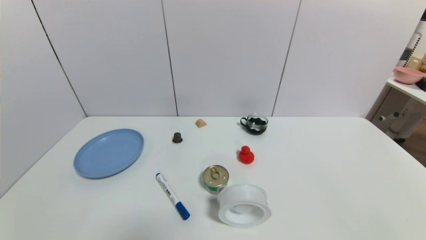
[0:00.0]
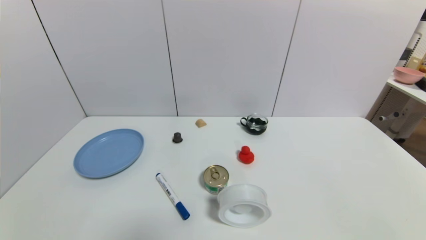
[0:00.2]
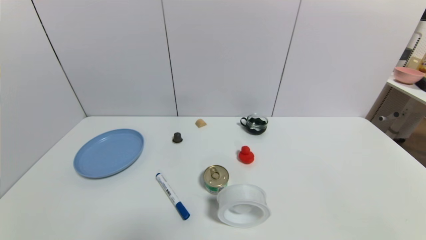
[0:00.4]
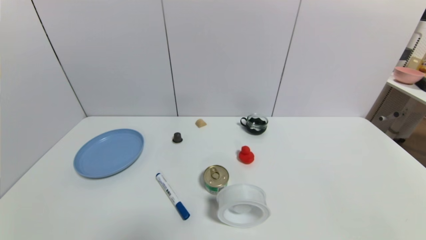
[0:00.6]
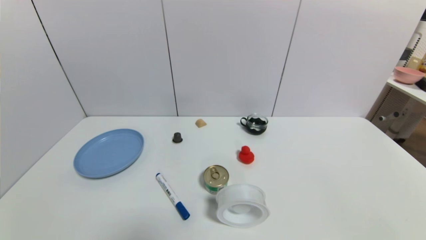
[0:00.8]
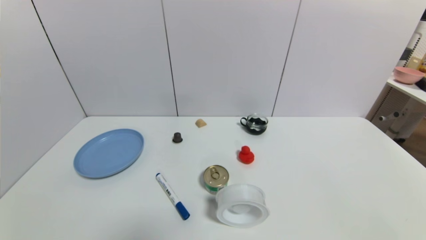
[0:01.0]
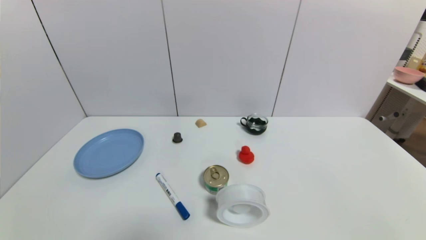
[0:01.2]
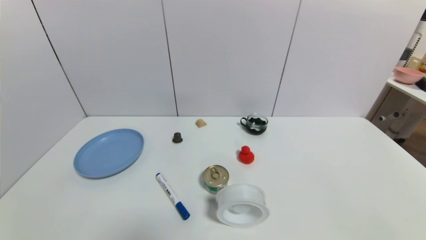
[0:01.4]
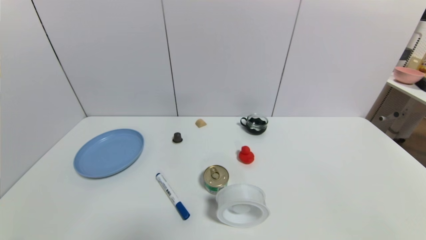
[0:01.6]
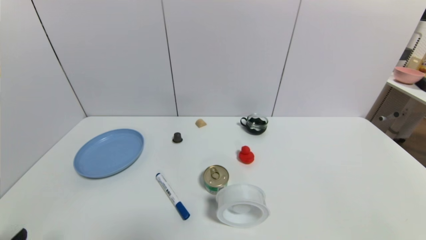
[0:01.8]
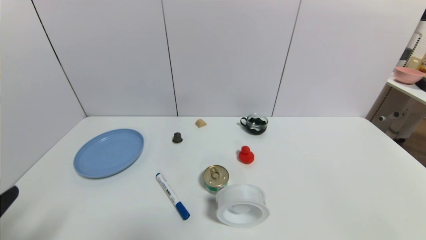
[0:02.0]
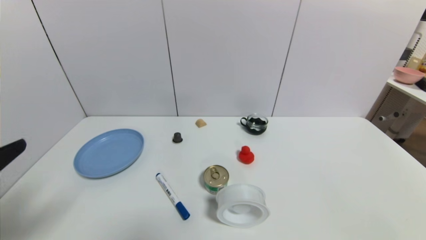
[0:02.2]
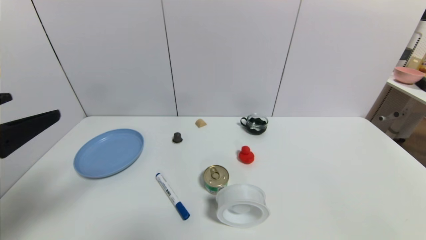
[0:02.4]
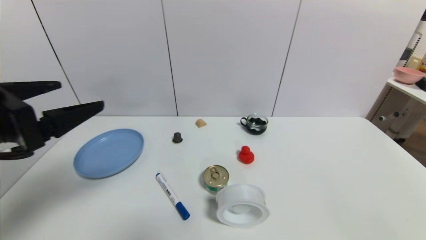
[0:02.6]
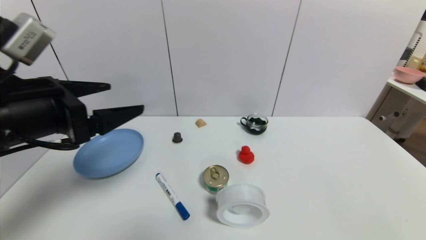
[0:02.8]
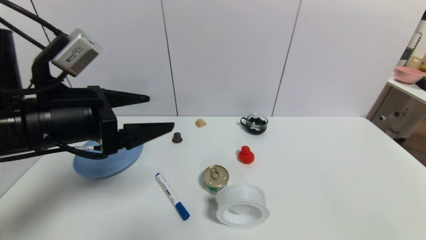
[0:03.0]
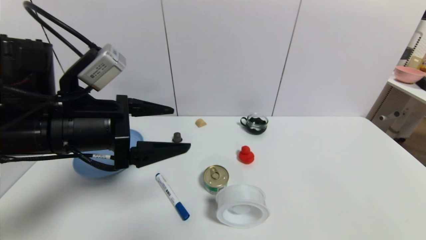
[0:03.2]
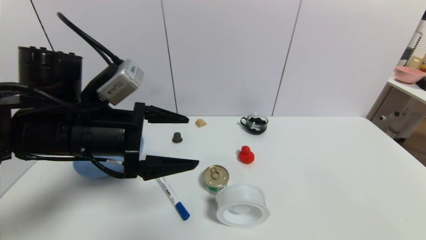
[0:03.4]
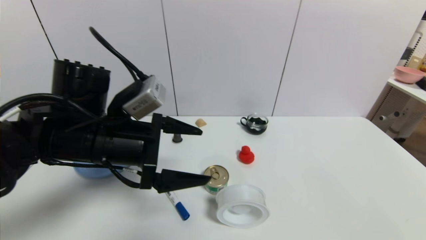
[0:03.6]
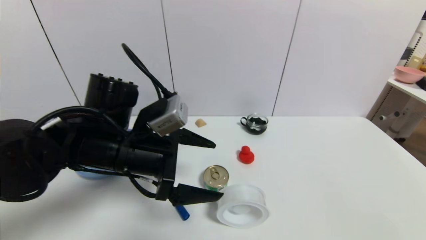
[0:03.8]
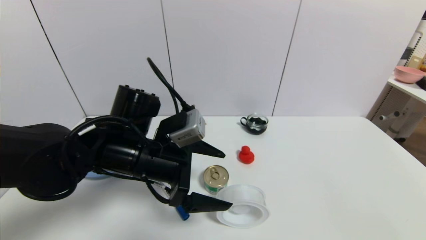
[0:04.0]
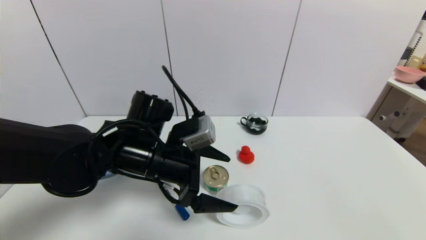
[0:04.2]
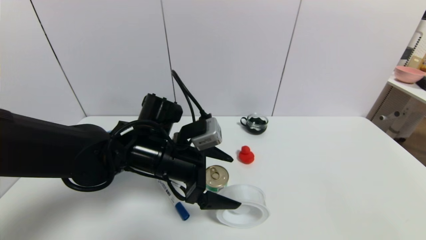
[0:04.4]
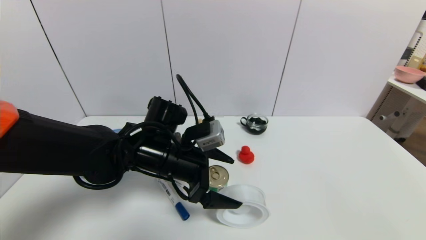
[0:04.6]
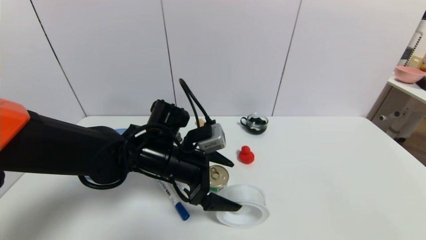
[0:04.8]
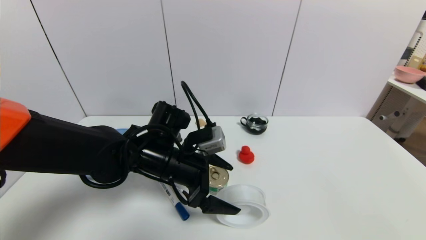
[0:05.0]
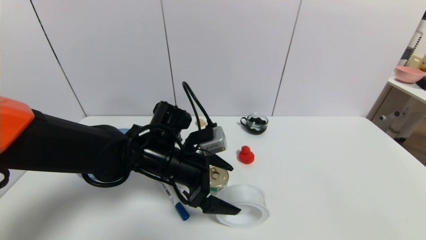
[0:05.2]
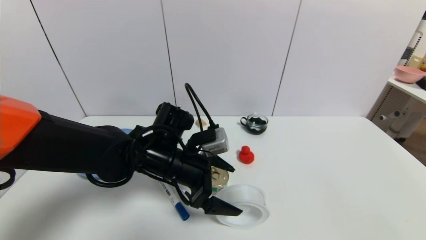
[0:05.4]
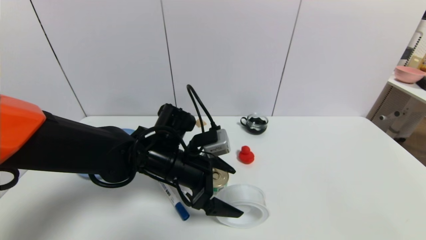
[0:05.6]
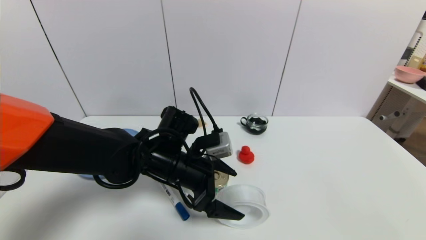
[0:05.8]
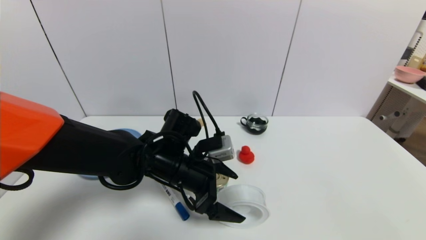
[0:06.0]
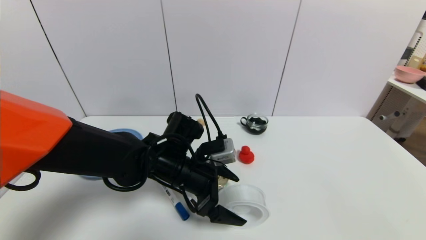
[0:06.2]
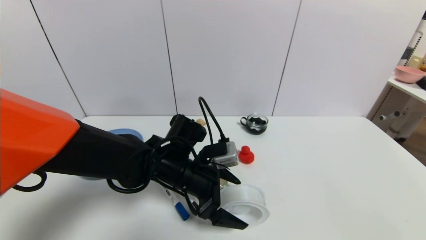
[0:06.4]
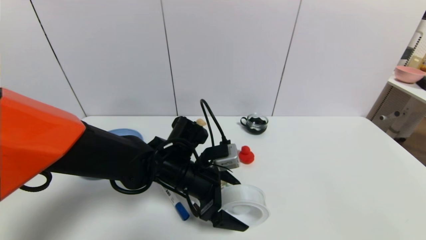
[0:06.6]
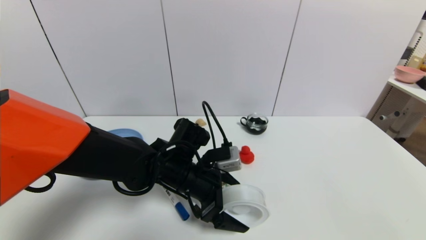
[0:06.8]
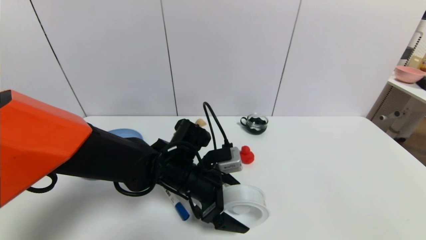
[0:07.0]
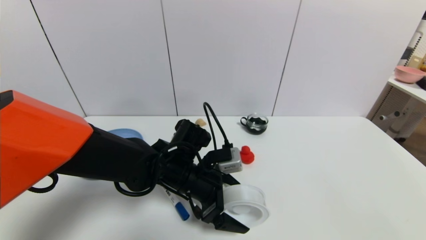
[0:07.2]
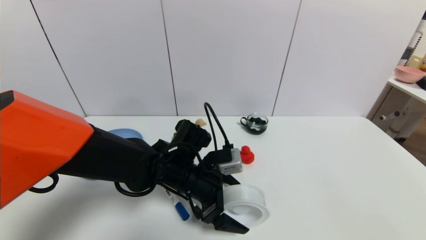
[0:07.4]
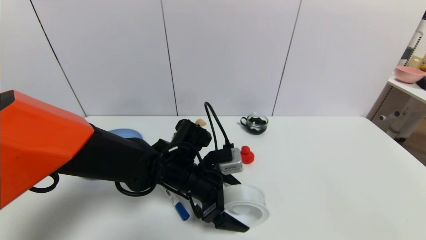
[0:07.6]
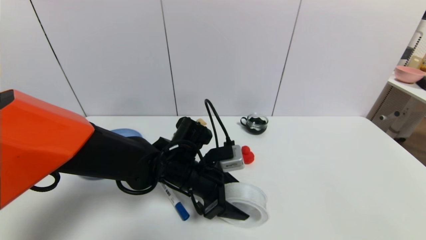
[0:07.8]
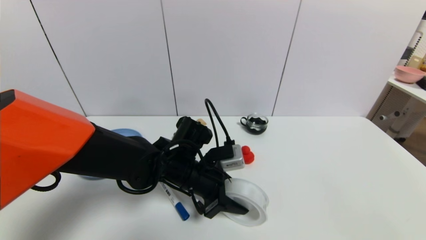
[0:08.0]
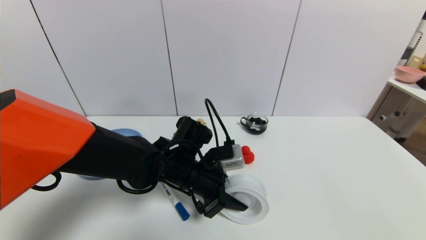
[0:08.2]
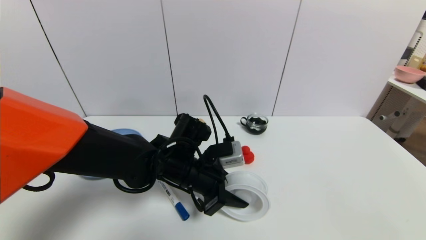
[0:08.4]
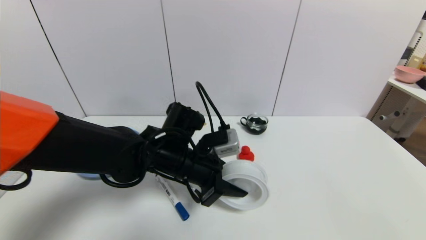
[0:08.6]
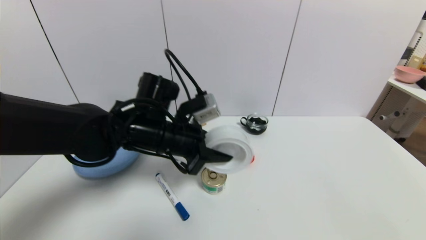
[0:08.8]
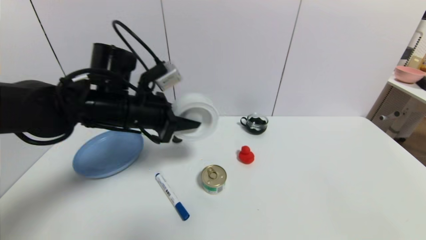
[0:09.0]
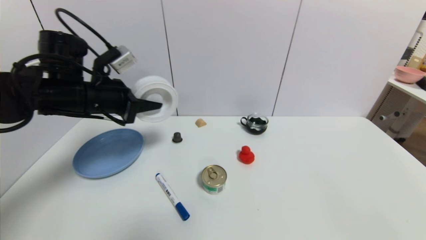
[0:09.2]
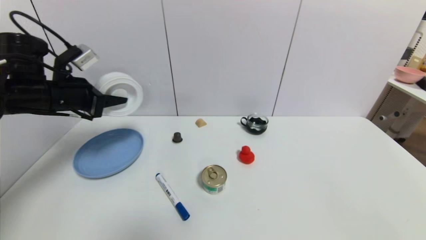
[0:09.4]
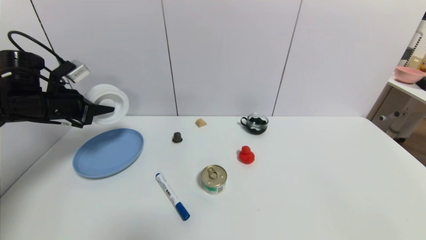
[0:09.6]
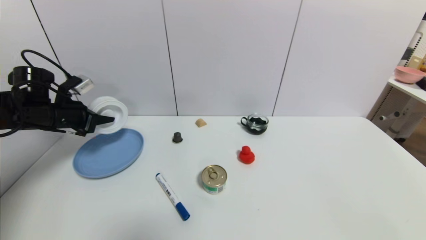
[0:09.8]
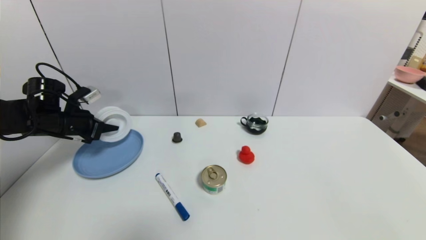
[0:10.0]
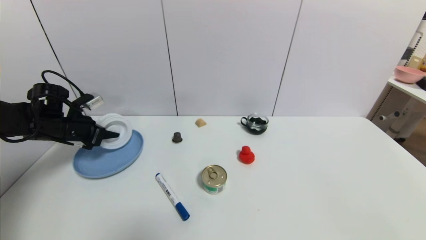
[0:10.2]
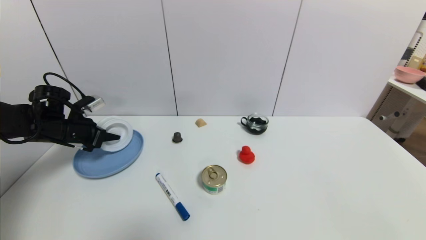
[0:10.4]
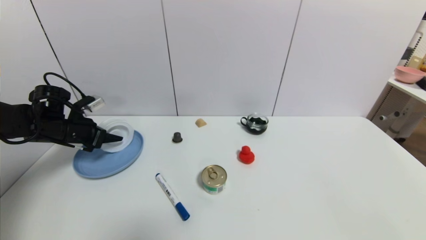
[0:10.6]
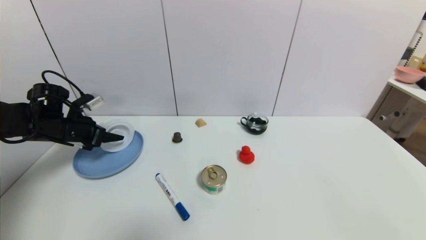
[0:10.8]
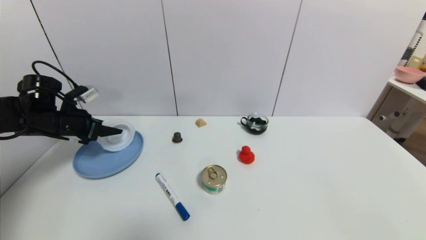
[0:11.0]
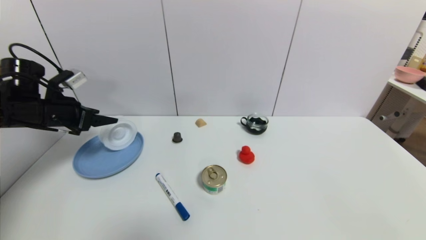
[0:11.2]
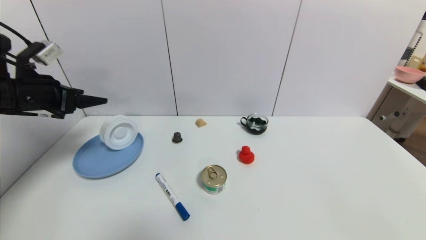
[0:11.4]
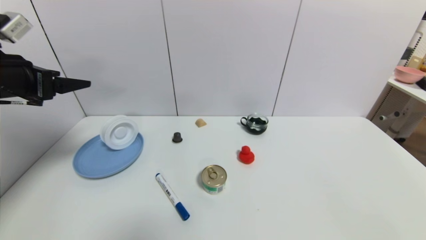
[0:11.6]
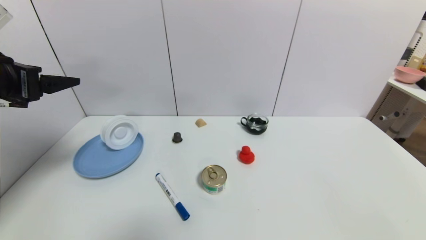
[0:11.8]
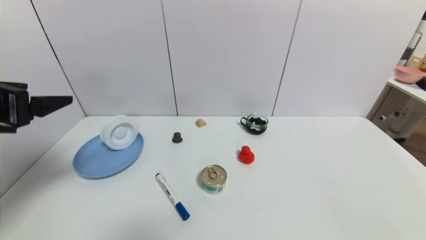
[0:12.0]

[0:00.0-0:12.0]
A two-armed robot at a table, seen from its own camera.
Task of the whole recording: use a gripper to pick the target object and place on the blue plate.
Step, 0:00.0 to 0:08.2: Grasp the tape with the left gripper.
Step, 0:08.4 to 0:10.6: Place the tape on the blue plate with the left gripper.
0:01.6 to 0:03.0: The left gripper moves forward, upward and to the right, about 30 cm.
0:03.0 to 0:04.4: The left gripper heads to the right, downward and forward, covering approximately 15 cm.
0:04.4 to 0:06.0: There are only small adjustments of the grippers.
0:06.0 to 0:07.6: The grippers stay close to where they were, moving slightly.
0:07.6 to 0:09.0: The left gripper travels upward and to the left by approximately 15 cm, and closes up.
0:09.0 to 0:10.4: The left gripper is displaced to the left and downward by about 20 cm.
0:10.4 to 0:12.0: The left gripper is displaced backward and upward by roughly 25 cm, and opens.

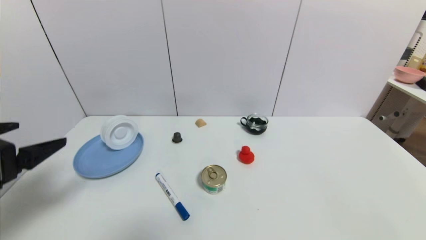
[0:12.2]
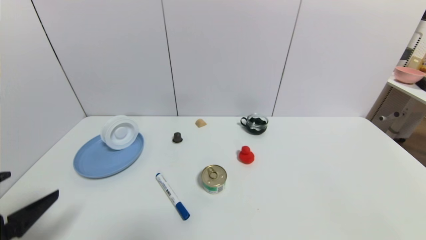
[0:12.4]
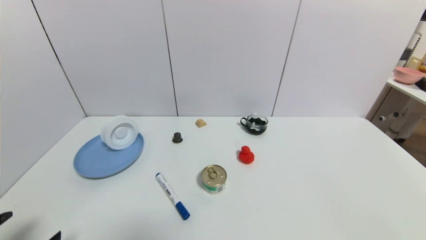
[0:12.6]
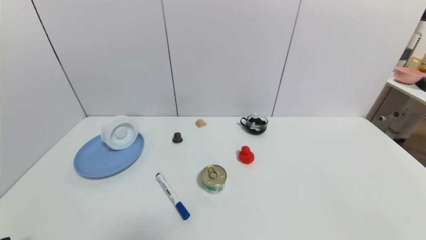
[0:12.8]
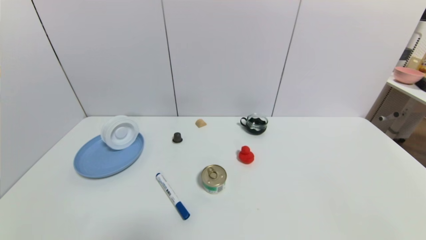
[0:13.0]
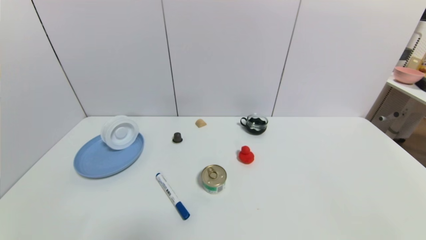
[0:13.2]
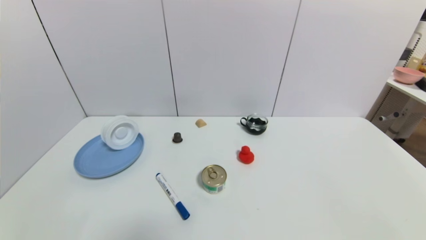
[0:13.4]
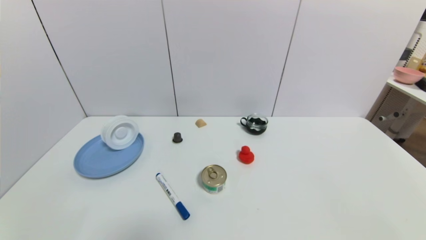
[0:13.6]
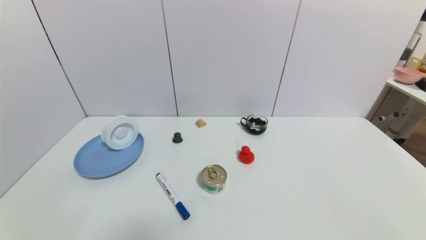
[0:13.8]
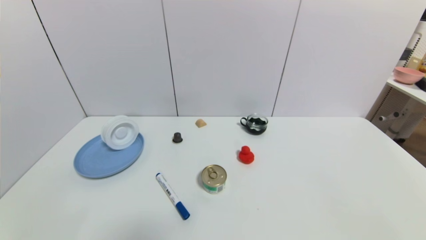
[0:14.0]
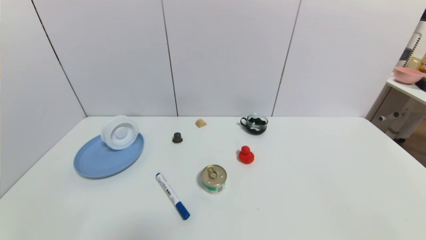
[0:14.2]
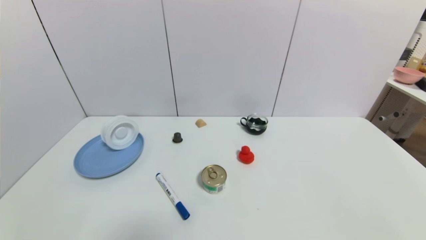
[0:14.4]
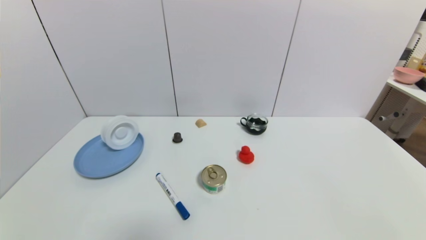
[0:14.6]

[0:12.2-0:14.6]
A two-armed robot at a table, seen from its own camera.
Task of the whole recording: use a gripper to pick the target object and place on the blue plate.
0:12.2 to 0:13.4: The left gripper is displaced downward and backward by roughly 25 cm.
0:13.4 to 0:14.6: Neither gripper changes place.
